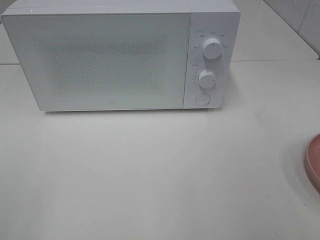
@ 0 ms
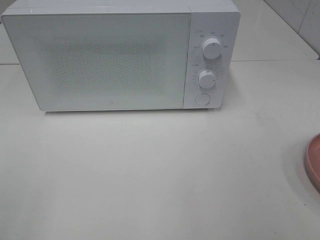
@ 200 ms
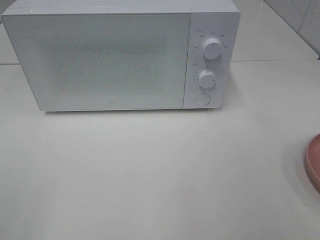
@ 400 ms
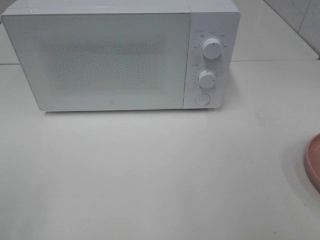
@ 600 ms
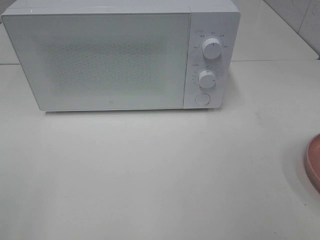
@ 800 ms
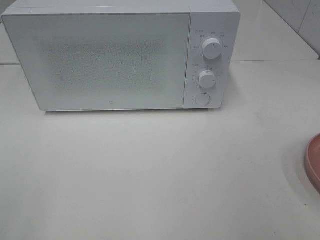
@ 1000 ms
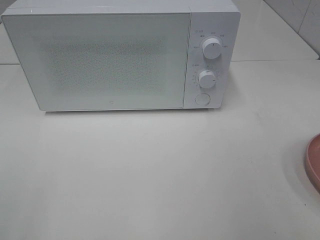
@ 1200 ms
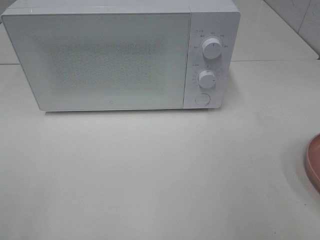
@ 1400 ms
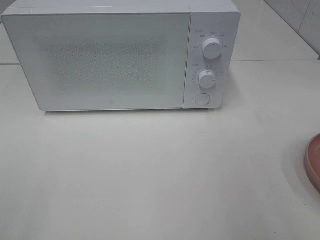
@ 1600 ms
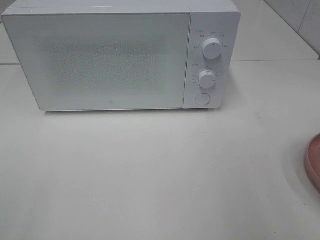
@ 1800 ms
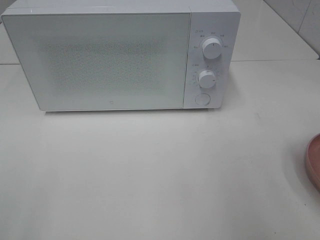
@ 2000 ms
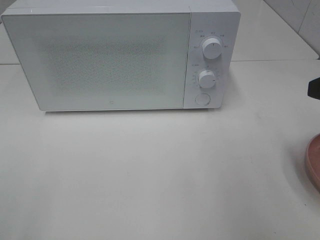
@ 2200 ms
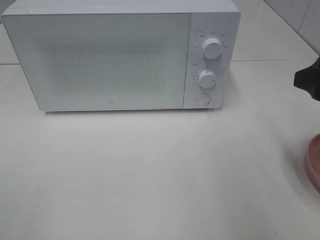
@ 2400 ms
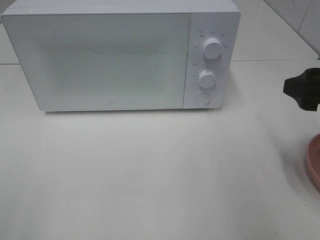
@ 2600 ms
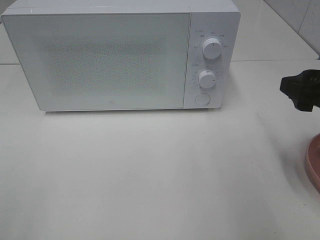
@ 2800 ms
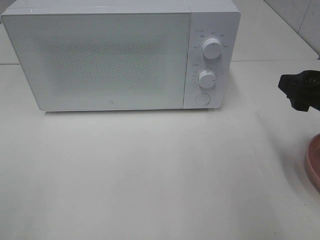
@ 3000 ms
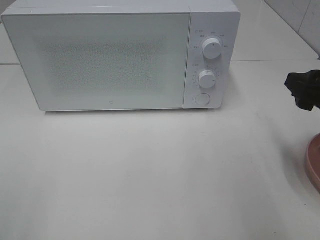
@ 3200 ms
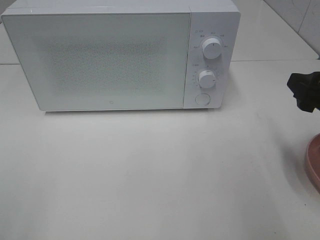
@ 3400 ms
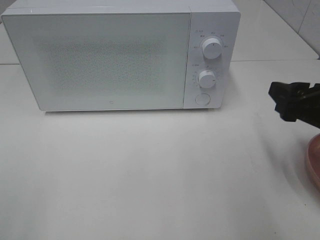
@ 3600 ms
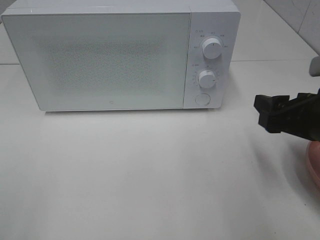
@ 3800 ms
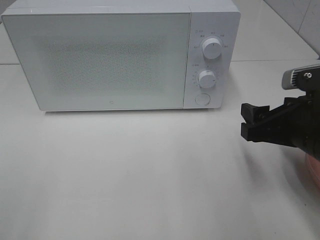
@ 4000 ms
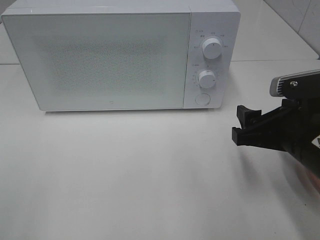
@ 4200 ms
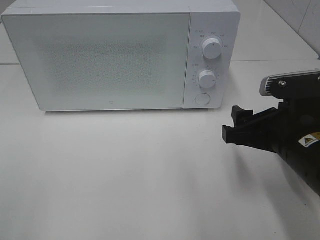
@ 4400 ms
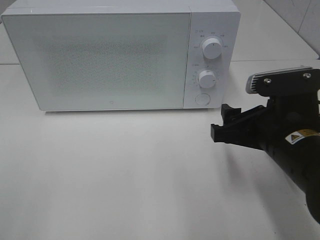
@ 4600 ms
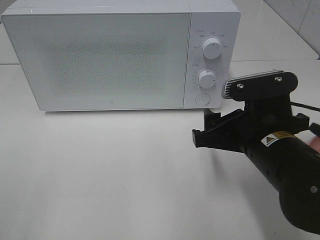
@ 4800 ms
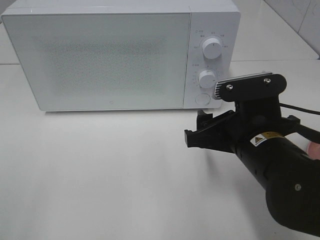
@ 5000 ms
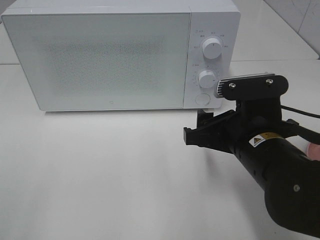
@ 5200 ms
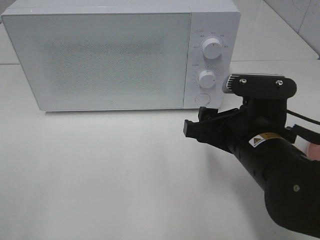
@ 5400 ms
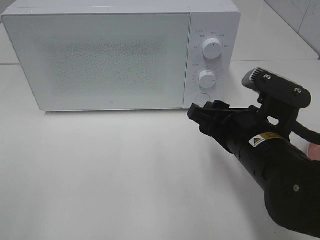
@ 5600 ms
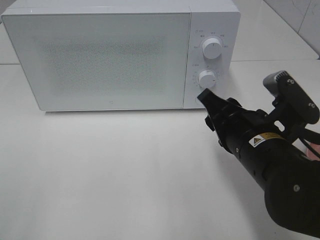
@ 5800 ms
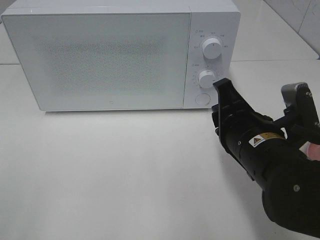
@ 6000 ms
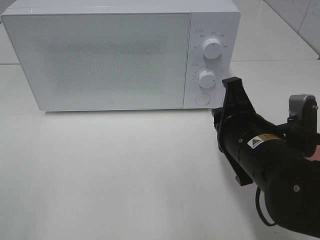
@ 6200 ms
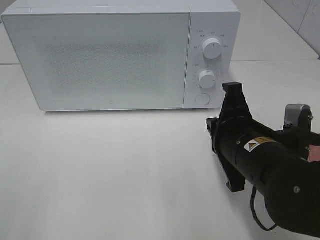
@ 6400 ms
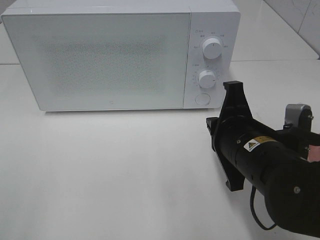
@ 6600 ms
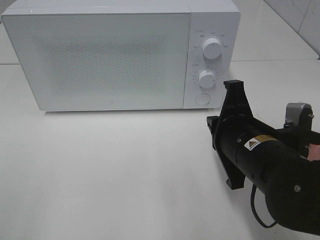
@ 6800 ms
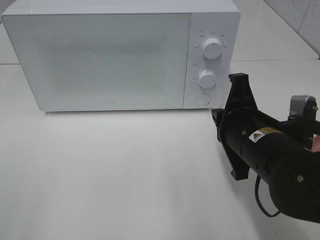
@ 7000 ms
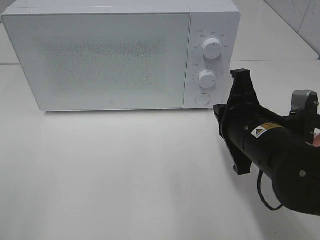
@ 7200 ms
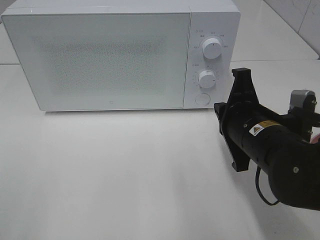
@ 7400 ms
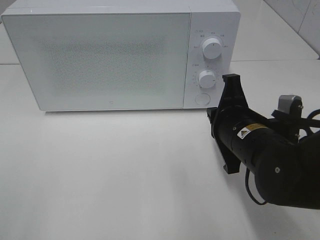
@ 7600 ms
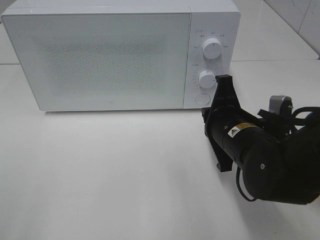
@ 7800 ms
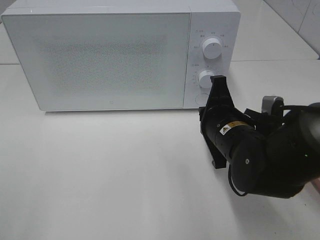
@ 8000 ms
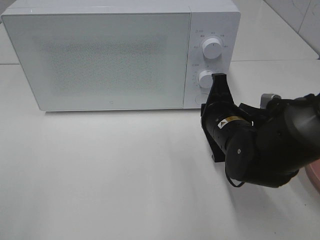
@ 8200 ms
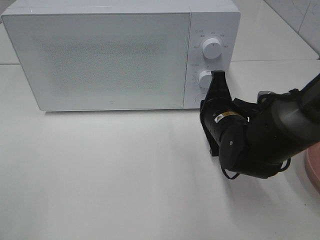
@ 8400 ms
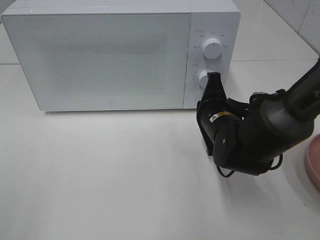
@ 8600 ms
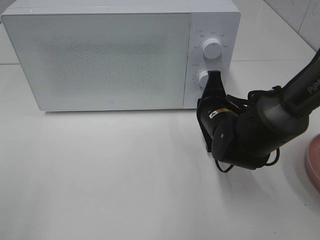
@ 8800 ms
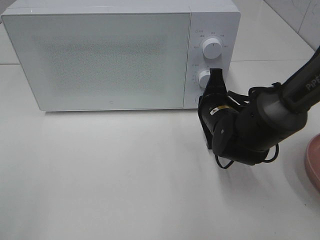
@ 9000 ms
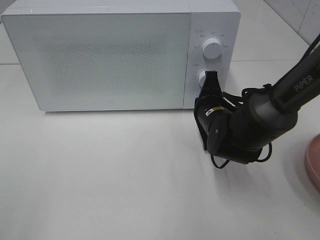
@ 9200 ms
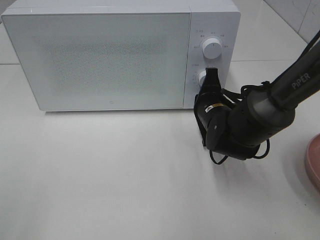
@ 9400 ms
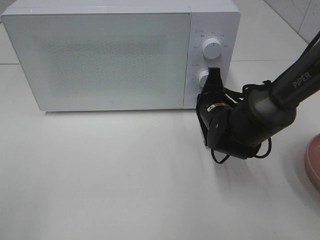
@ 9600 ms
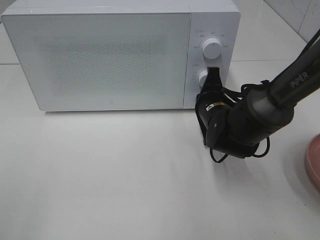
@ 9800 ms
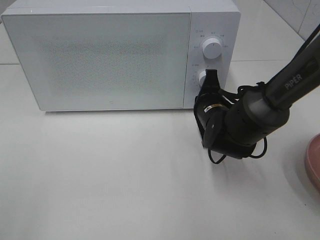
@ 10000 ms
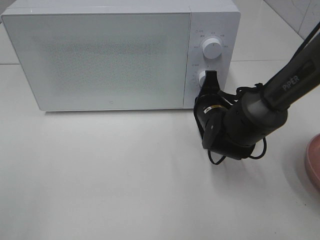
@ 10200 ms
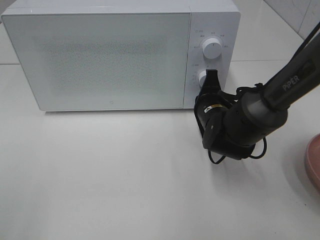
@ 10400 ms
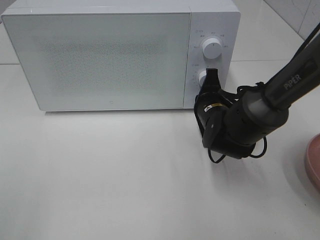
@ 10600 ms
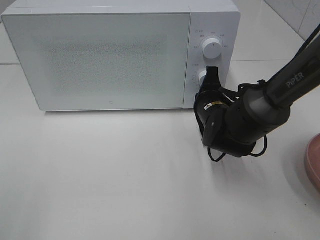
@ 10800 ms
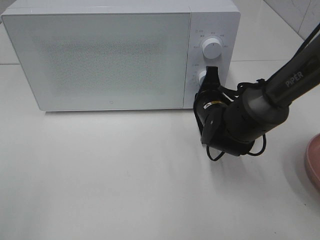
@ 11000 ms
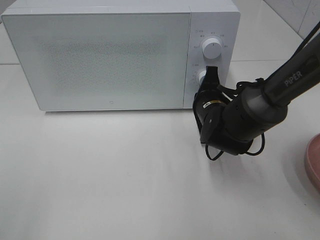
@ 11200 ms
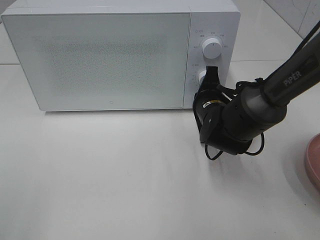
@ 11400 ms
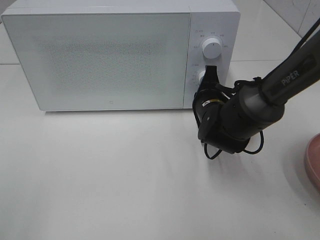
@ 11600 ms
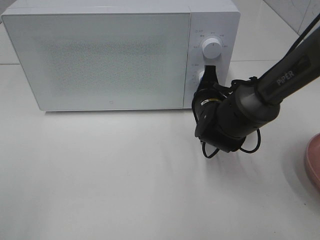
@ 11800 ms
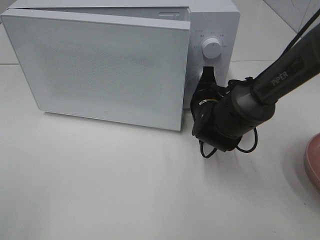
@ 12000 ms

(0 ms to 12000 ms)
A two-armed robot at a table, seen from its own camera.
Task of the whole recording: Heat the burger.
1600 ms - 3000 ms: The right gripper heads forward and downward, covering about 10 cm.
3000 ms - 4400 ms: The right gripper travels to the left by approximately 10 cm.
4400 ms - 6000 ms: The right gripper heads to the left, covering roughly 5 cm, and closes its fingers.
6000 ms - 7600 ms: The right gripper closes its fingers.
7600 ms - 9000 ms: The right gripper shifts roughly 10 cm forward.
9000 ms - 12000 ms: The grippers make only small movements.

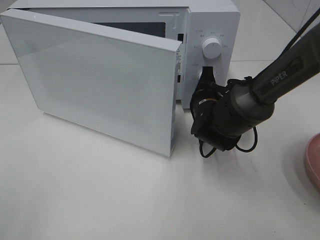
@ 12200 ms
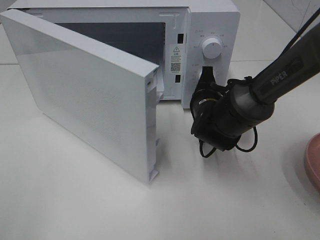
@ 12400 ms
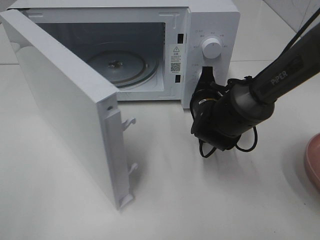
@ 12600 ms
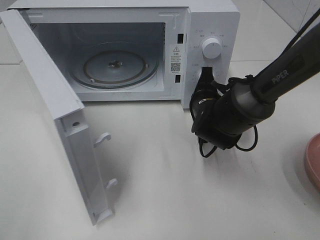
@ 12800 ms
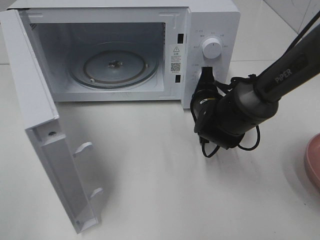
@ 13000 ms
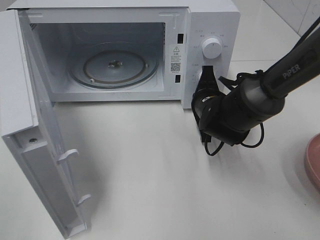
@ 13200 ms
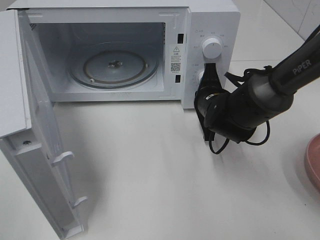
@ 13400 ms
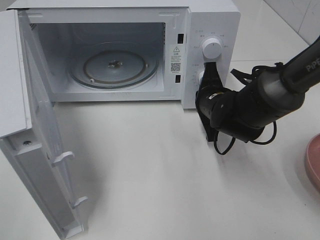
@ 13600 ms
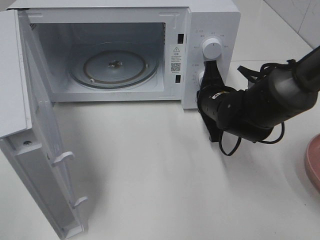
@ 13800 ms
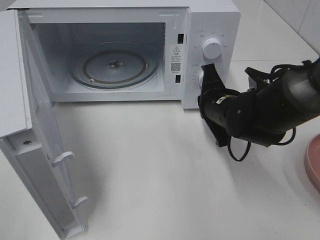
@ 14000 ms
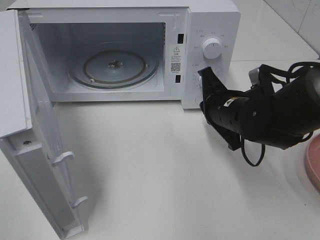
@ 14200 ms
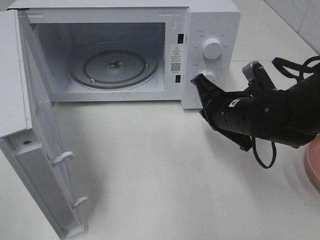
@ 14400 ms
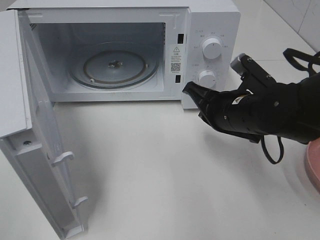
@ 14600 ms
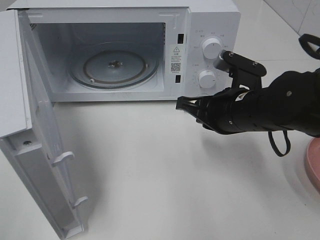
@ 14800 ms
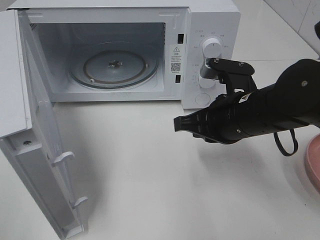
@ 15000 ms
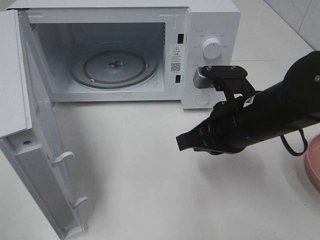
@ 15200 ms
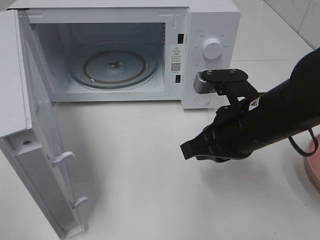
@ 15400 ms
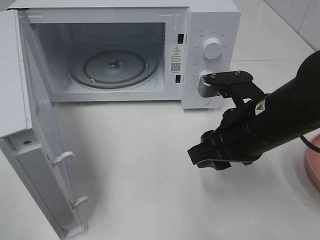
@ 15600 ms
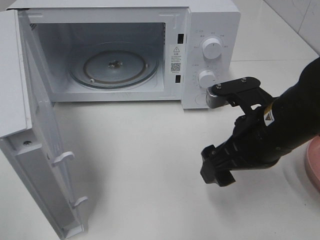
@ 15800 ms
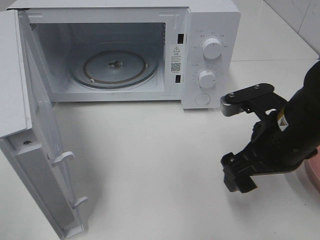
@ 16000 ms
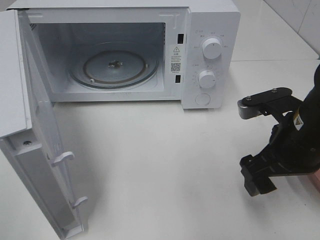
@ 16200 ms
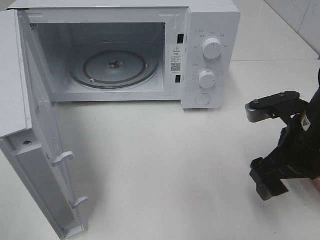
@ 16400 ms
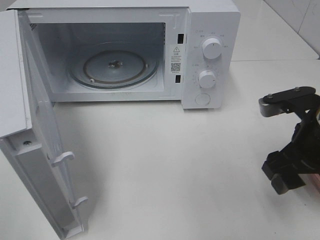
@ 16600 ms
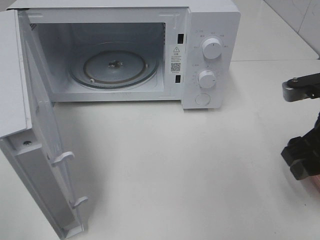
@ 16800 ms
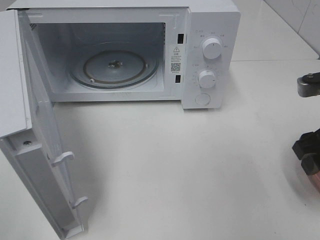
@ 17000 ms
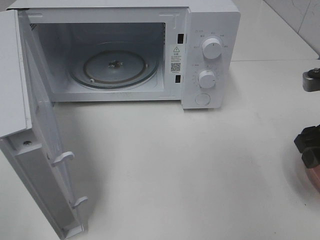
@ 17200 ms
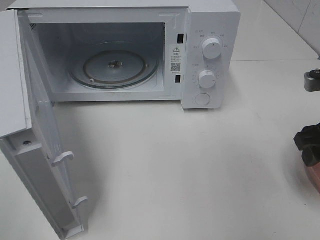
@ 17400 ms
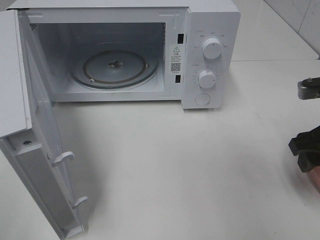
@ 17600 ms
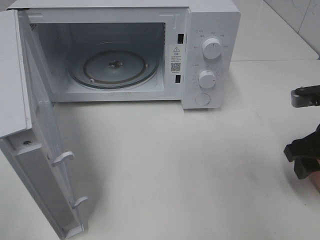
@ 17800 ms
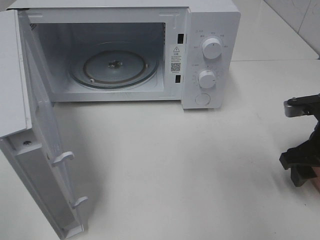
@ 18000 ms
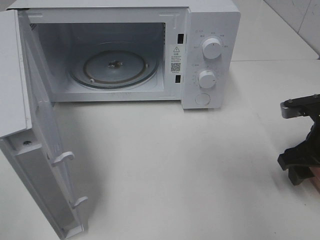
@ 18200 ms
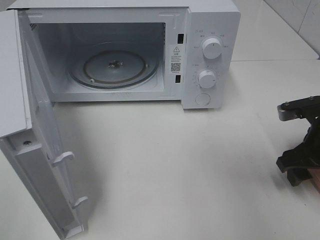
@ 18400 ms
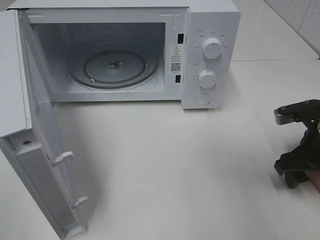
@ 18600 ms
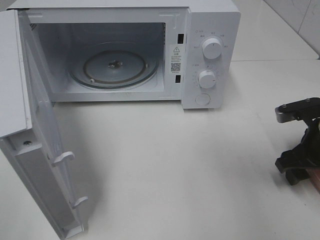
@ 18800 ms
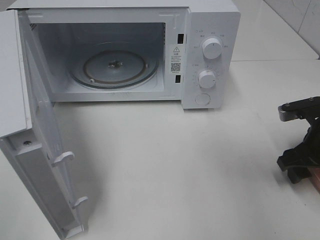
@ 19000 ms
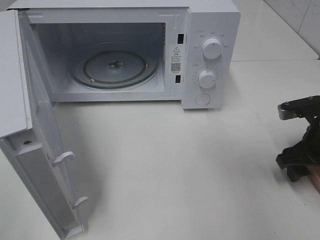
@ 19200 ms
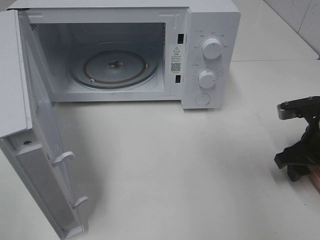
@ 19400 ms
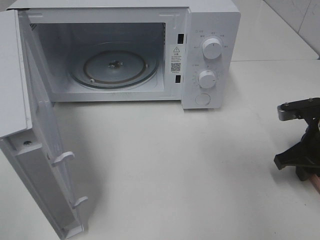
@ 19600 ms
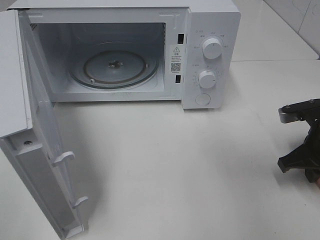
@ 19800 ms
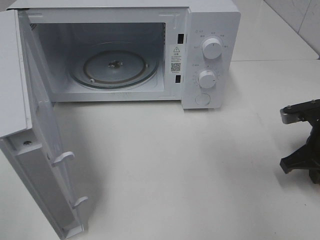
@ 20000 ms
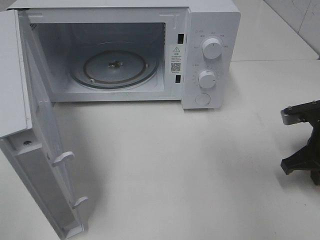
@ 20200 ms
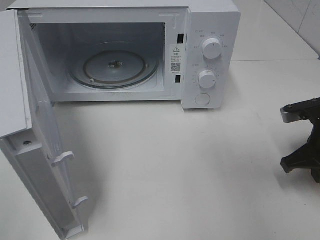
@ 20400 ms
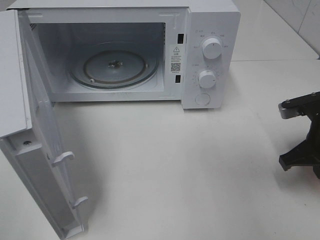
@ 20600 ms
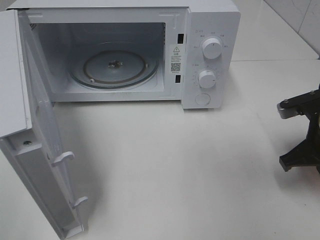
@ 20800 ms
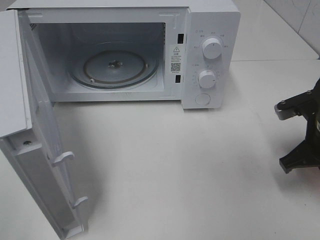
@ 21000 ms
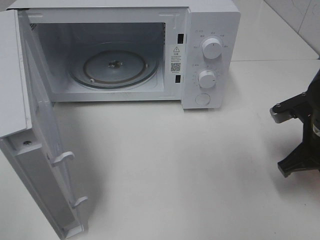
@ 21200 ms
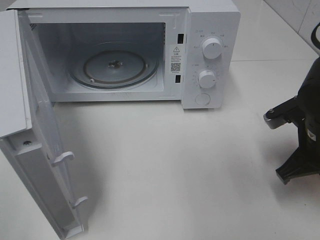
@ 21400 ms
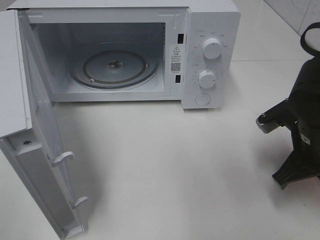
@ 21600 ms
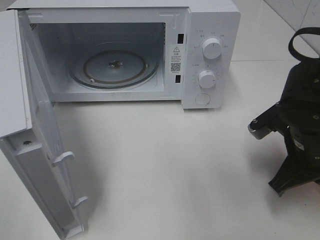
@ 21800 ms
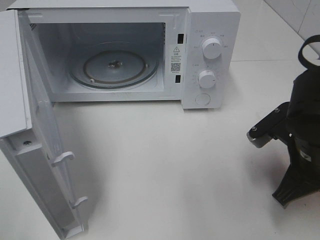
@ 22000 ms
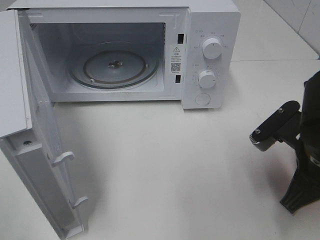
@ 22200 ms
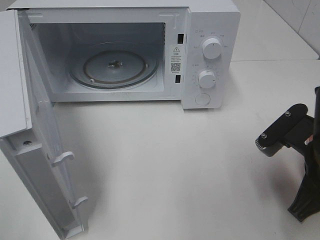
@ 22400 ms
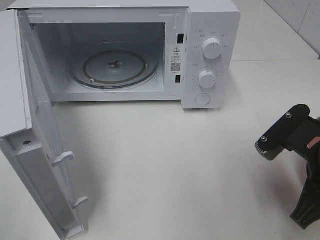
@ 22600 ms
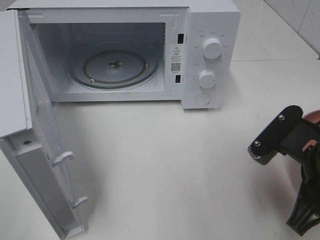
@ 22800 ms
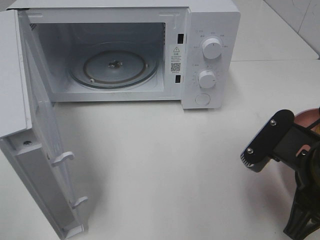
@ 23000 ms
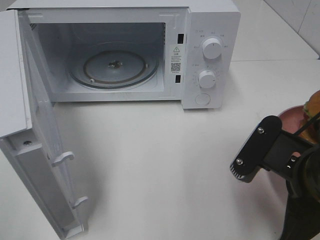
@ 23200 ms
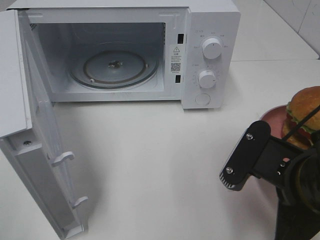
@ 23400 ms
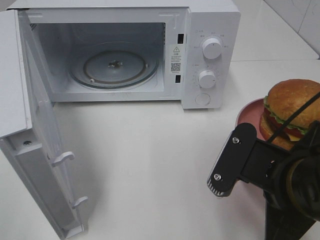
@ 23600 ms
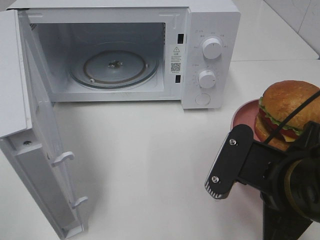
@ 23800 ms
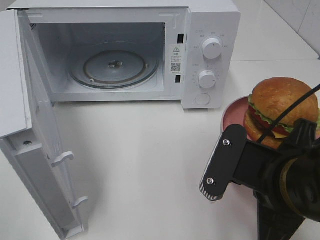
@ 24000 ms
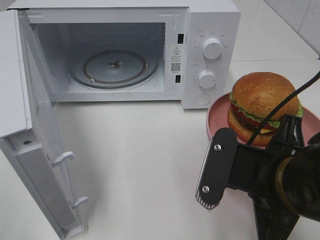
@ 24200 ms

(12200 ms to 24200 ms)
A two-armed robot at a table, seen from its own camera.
Task of the whole recording: Heat the burger.
Step, 13800 ms - 20000 ms: Right hand: grab the plate with the hamburger.
13800 ms - 15200 ms: The right gripper heads backward and upward, covering about 10 cm.
15200 ms - 16600 ms: The right gripper is displaced to the right by roughly 10 cm, and opens.
16600 ms - 18200 ms: The right gripper travels downward and to the right by about 10 cm.
18200 ms - 19800 ms: The right gripper closes its fingers.
19800 ms - 21200 ms: The right gripper shifts by approximately 5 cm.
21200 ms - 22600 ms: The right gripper is displaced backward and to the left by about 10 cm.
22600 ms - 24200 ms: The right gripper shifts some 5 cm to the left.
